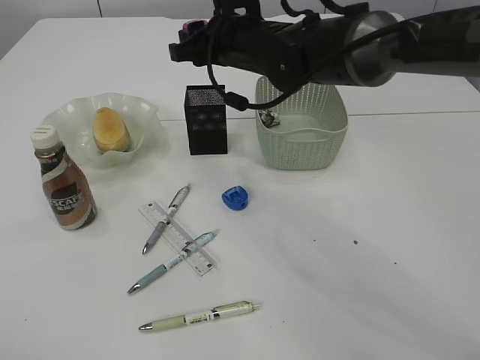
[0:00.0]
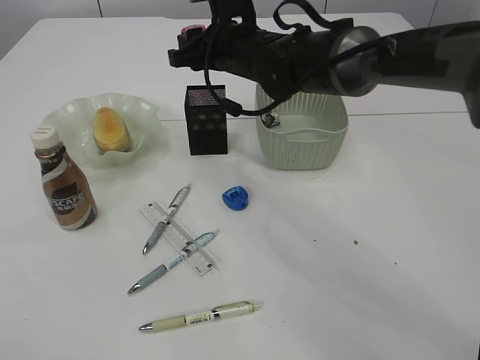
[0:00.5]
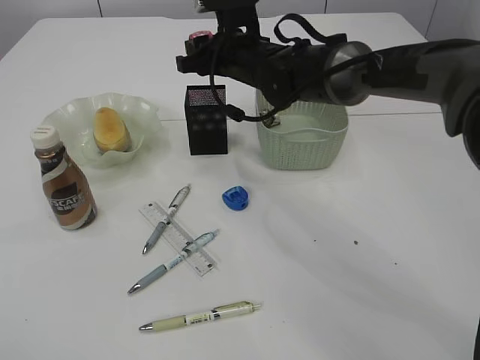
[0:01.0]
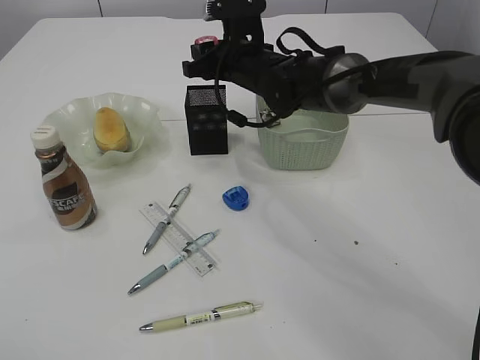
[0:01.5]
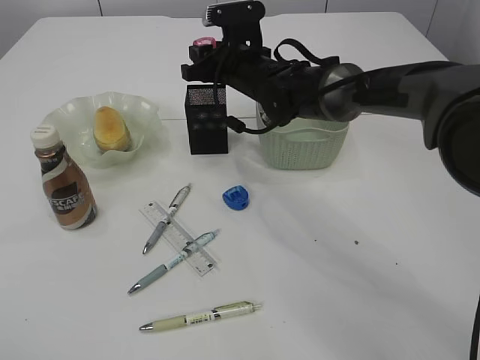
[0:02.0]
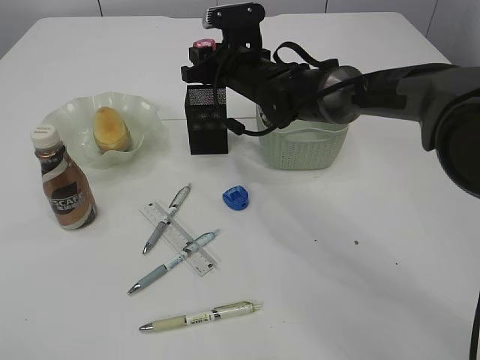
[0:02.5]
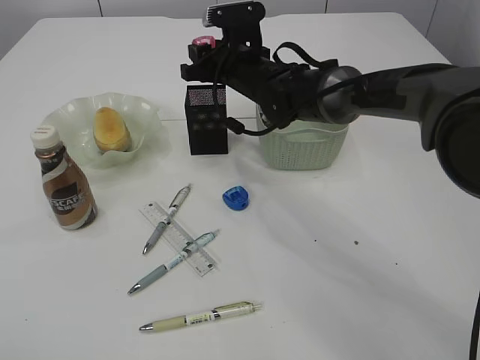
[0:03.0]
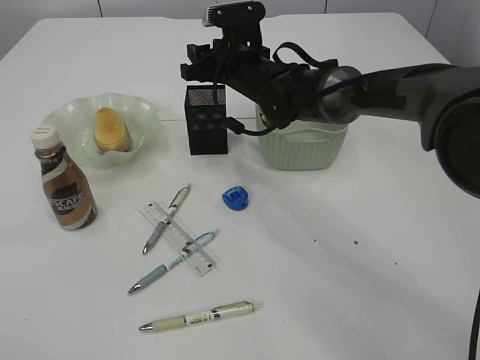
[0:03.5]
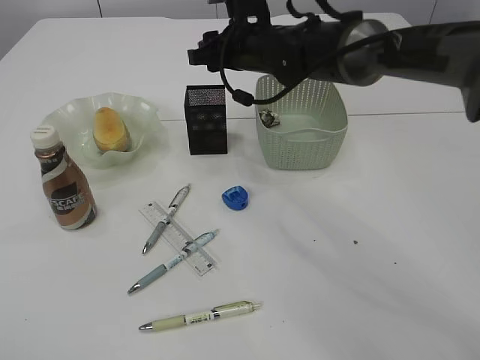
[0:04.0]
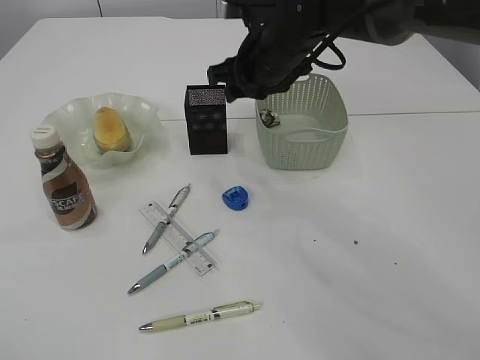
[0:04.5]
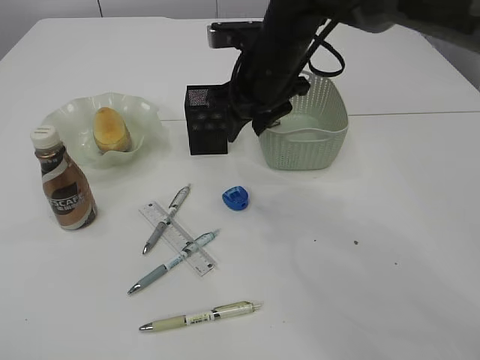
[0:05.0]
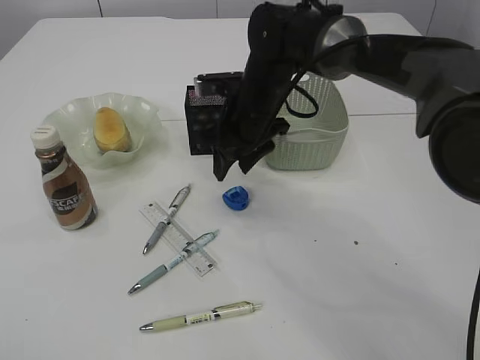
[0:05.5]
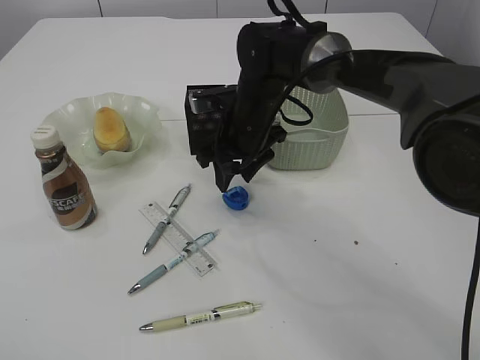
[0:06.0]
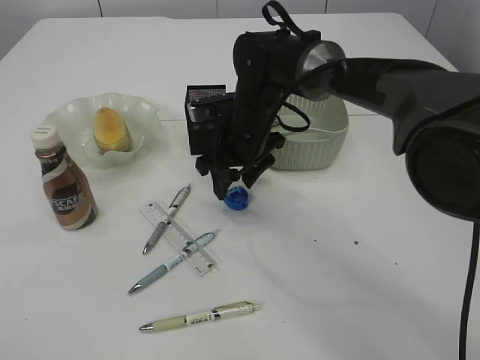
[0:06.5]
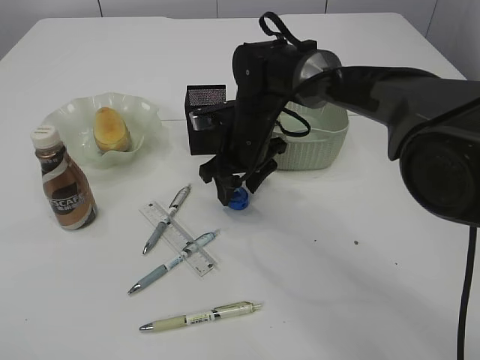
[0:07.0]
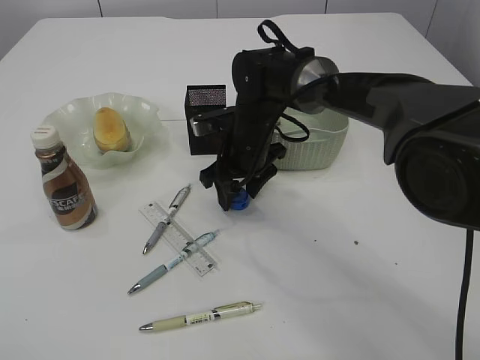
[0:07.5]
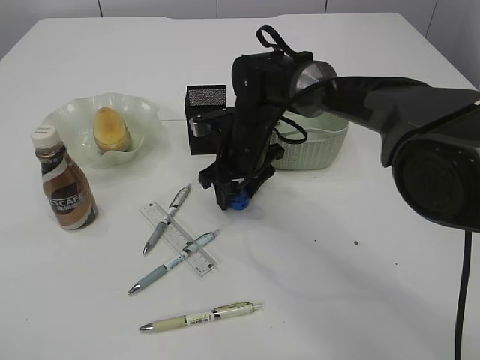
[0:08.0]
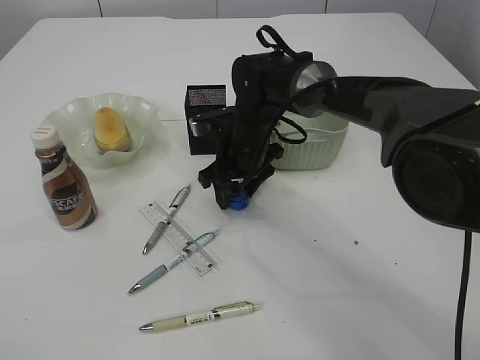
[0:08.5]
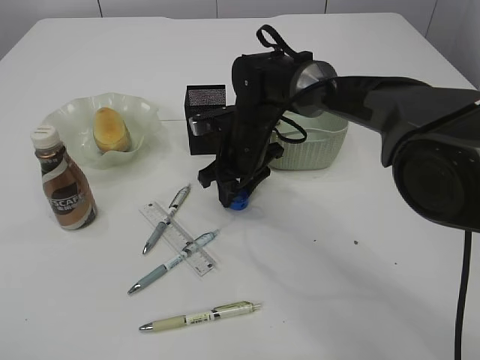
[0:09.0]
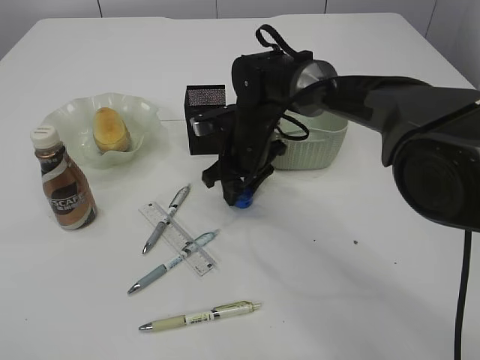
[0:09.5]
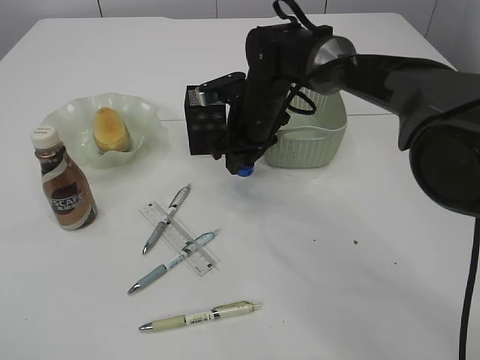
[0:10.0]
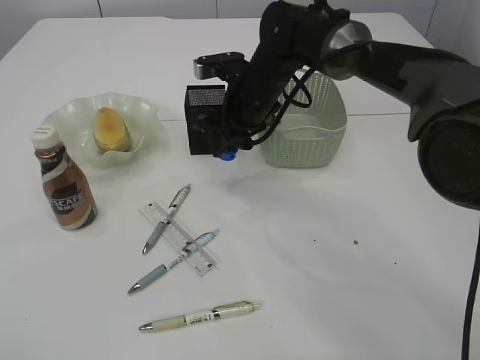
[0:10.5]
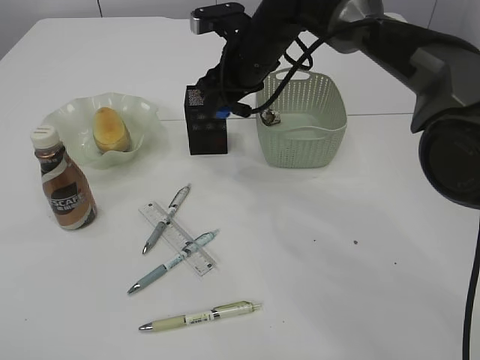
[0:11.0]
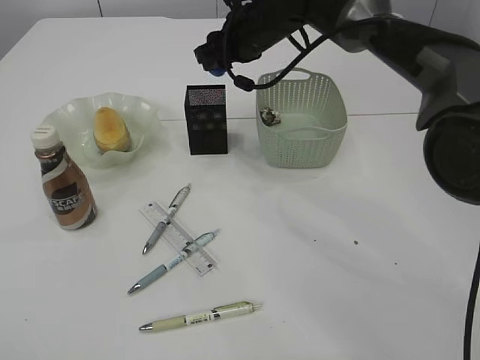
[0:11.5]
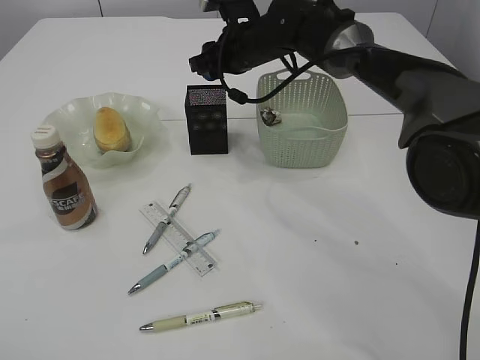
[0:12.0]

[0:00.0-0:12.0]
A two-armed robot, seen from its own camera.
Step, 0.0 to 4.0 s: Place the red pencil sharpener into the pen holder.
Step, 4.5 to 10.0 s: Pick up the blue pencil sharpener.
0.0 to 2.0 s: The right gripper goes roughly 5 cm downward.
2.0 to 4.0 s: There are only small adjustments of the grippers.
4.0 to 6.0 s: The right gripper moves downward, roughly 5 cm.
6.0 to 10.0 s: The grippers make only small movements.
10.0 to 12.0 s: The right gripper travels upward and forward by roughly 10 cm.

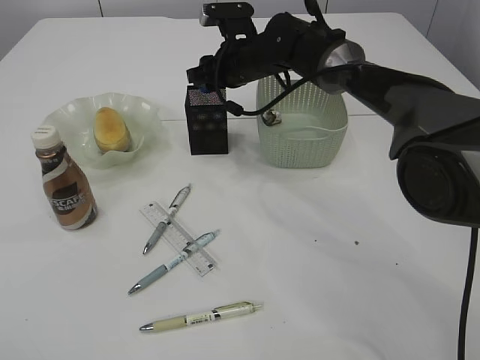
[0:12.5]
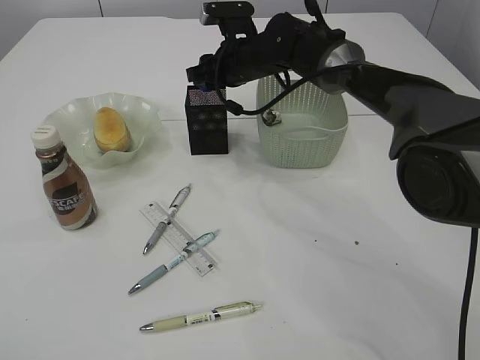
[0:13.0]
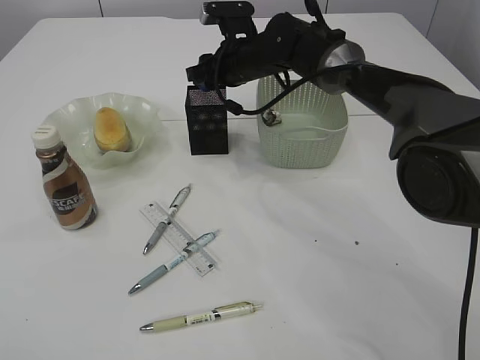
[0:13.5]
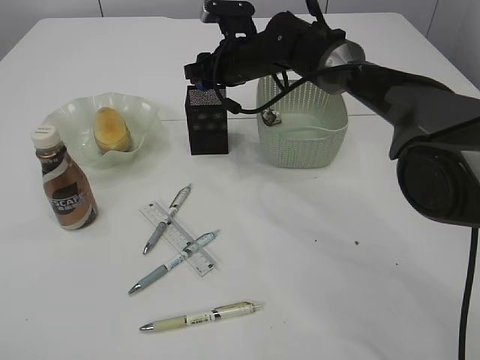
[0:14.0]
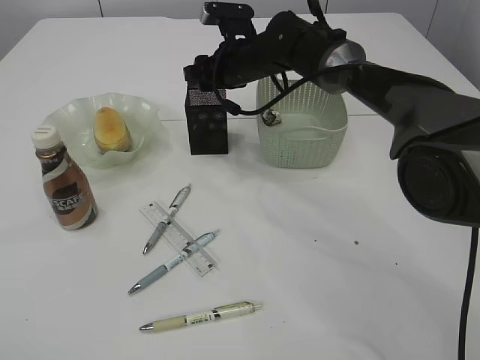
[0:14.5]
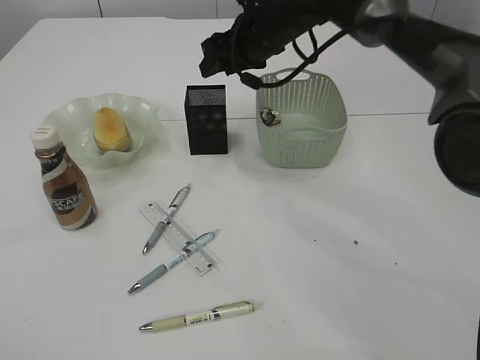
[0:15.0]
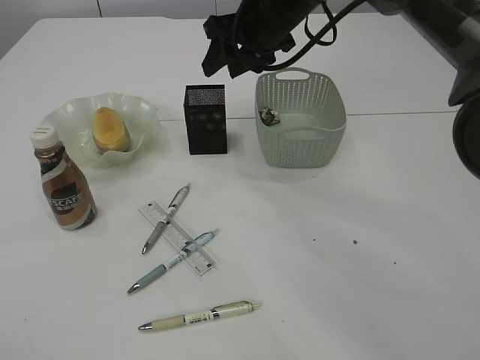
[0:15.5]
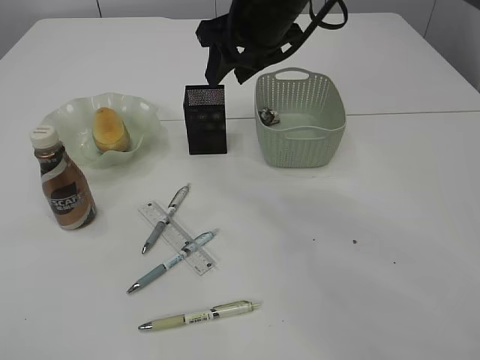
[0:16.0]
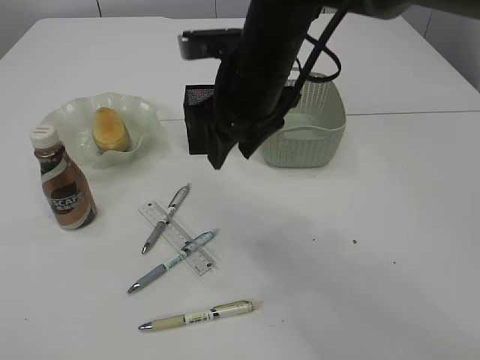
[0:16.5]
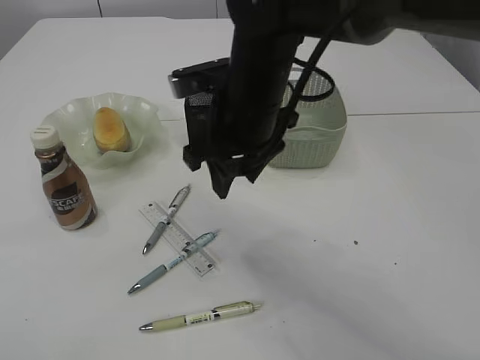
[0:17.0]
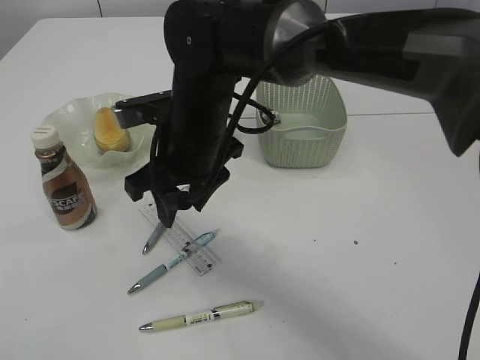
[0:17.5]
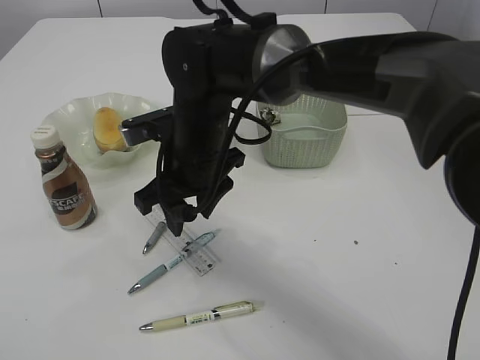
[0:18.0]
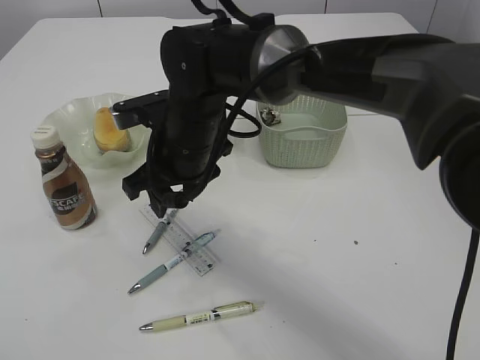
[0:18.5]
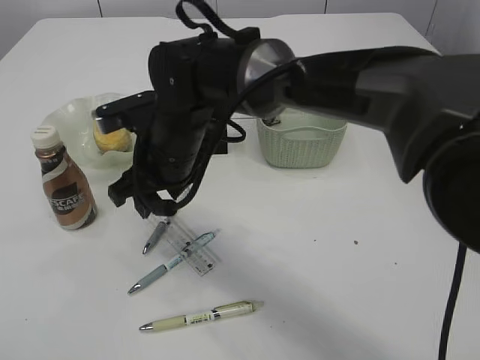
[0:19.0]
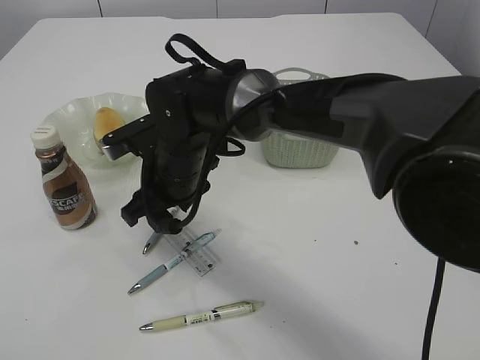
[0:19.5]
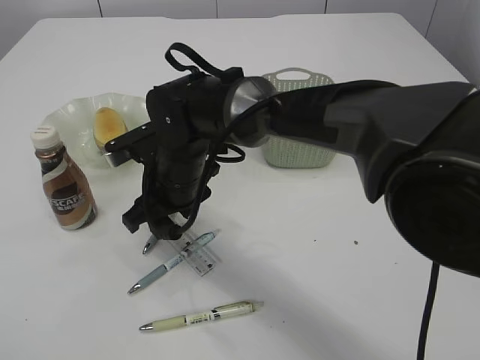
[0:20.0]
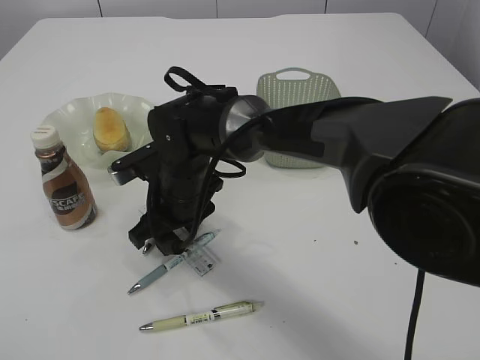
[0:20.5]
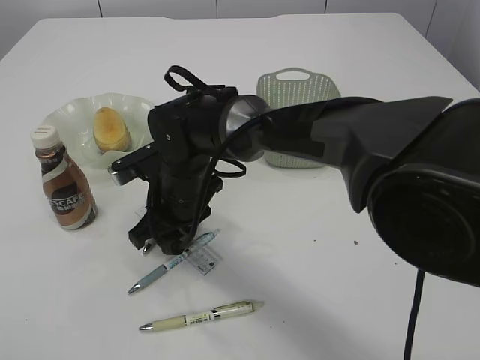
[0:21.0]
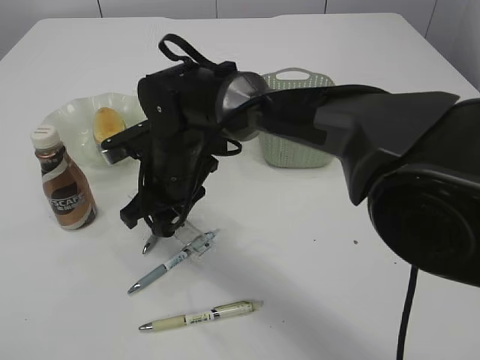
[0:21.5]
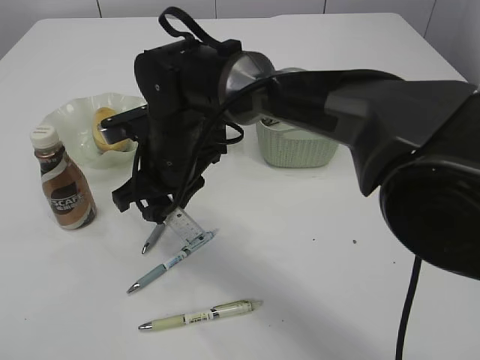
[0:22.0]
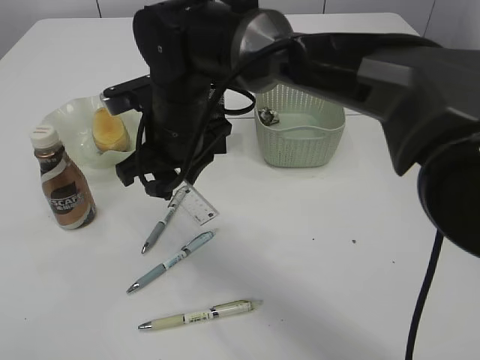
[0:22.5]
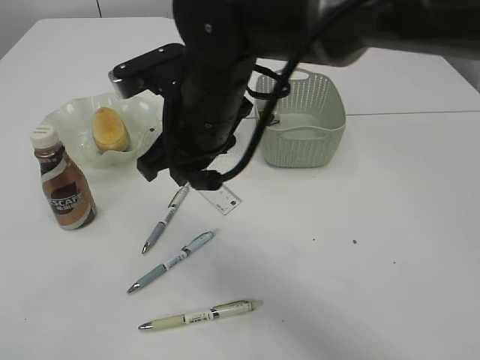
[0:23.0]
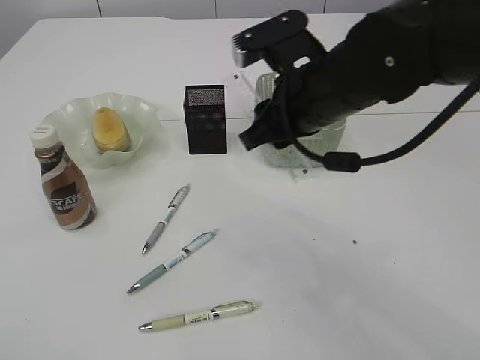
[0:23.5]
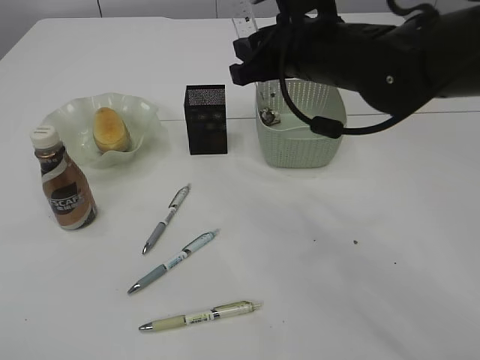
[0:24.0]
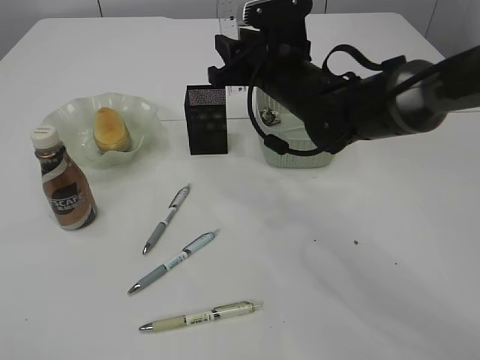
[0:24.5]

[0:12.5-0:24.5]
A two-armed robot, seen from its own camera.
Step, 12.5 to 15.0 s: Place the blue pencil sharpener into the pen holder.
Step, 15.5 to 22.0 s: pick up the ruler.
12.5 to 14.5 s: Both grippers stay about where they are.
14.5 to 16.5 s: The right gripper goes about 15 cm backward and upward.
16.5 to 18.5 s: The right gripper moves to the left and downward, approximately 10 cm.
18.5 to 20.5 s: The right gripper heads downward, covering about 5 cm.
20.5 to 22.5 s: The right gripper shifts approximately 10 cm upward.
22.5 to 24.5 s: The right gripper is displaced to the right and forward by some 15 cm.

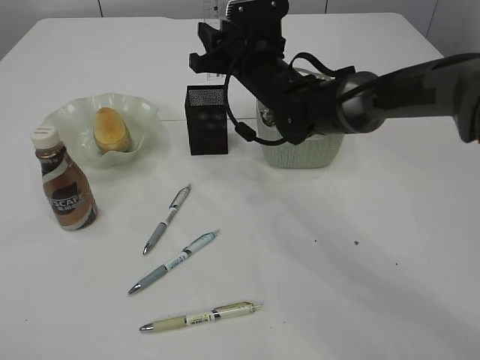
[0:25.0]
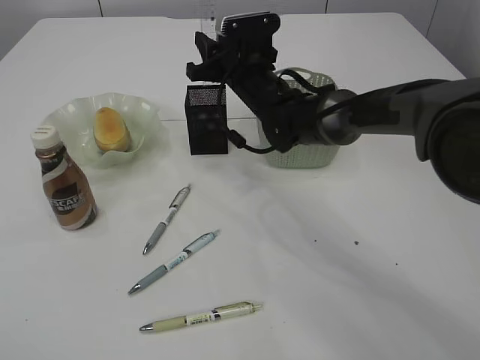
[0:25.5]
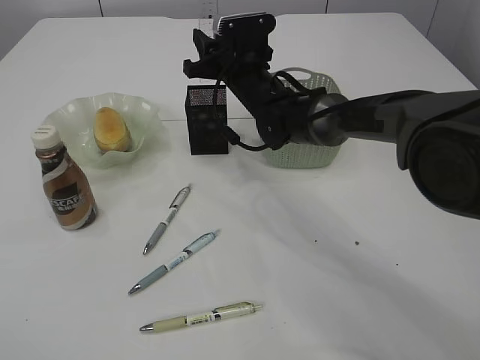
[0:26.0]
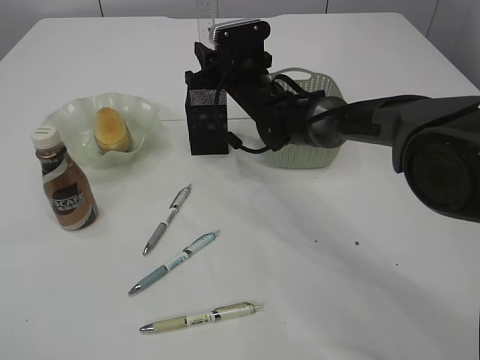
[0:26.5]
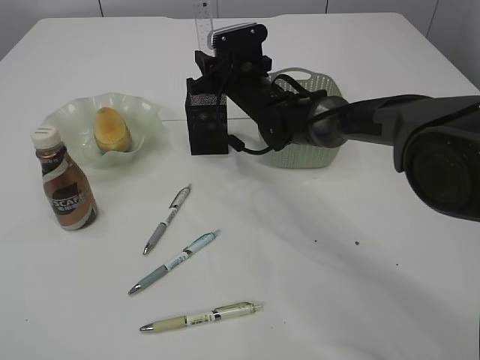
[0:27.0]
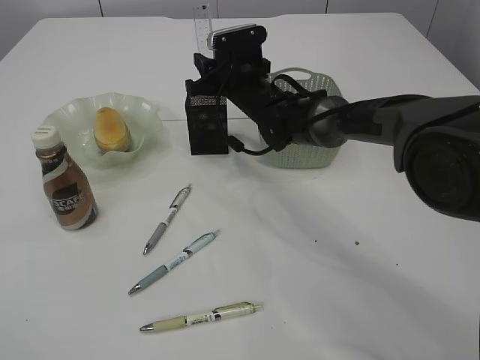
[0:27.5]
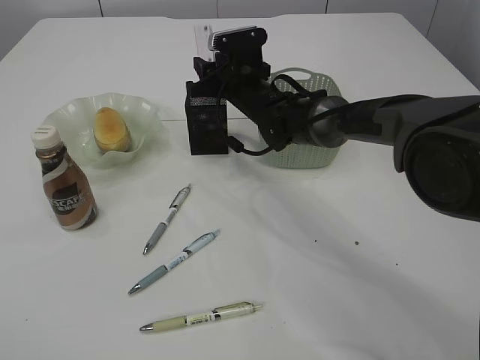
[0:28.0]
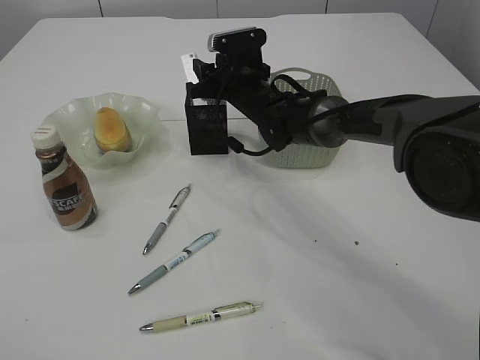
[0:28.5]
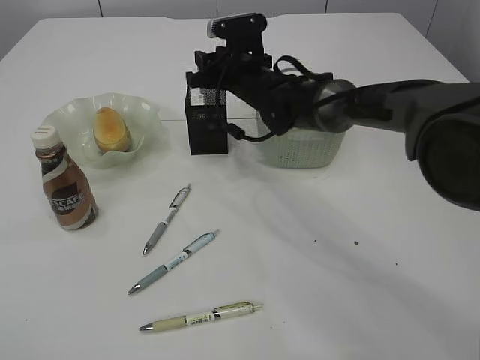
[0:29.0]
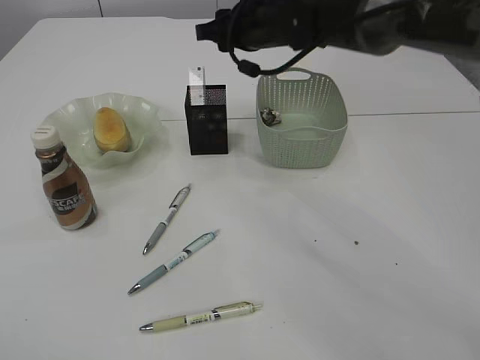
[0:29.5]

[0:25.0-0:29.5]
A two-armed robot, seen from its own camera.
Step, 25.0 to 29.5 s: Place the ruler into the pen holder.
25.0 to 27.0 s: The right gripper shifts by approximately 5 cm.
27.0 to 29.5 s: The right gripper goes some 10 cm upward.
